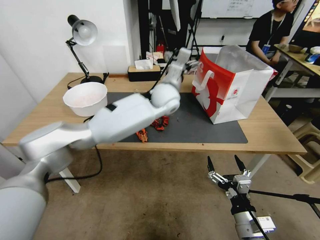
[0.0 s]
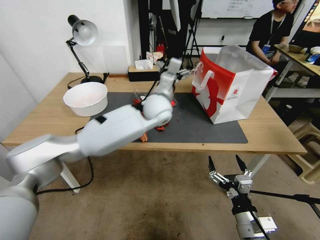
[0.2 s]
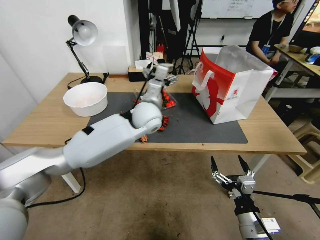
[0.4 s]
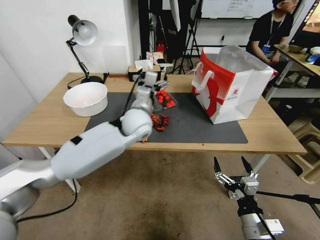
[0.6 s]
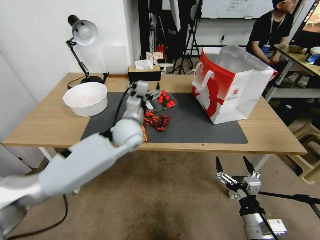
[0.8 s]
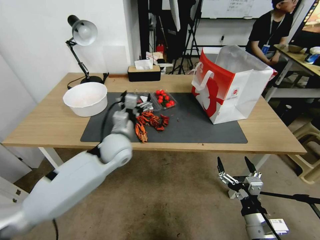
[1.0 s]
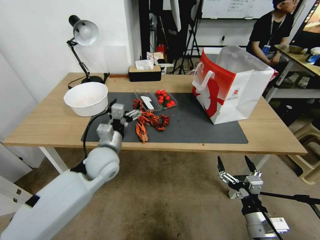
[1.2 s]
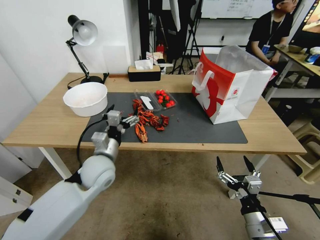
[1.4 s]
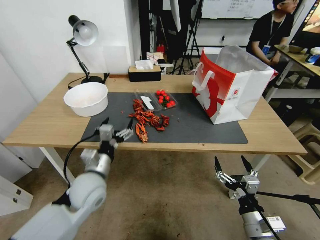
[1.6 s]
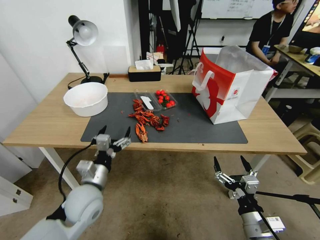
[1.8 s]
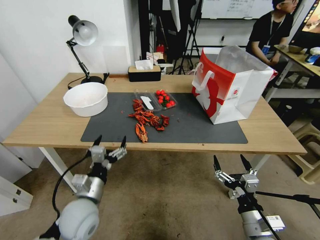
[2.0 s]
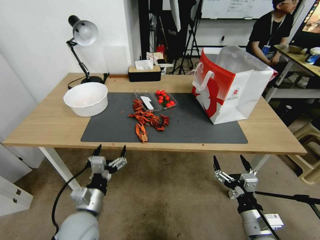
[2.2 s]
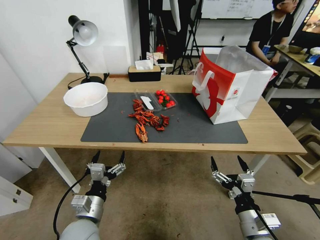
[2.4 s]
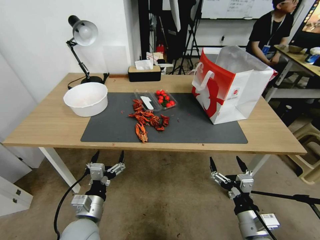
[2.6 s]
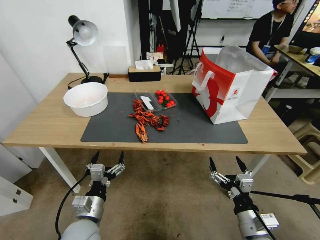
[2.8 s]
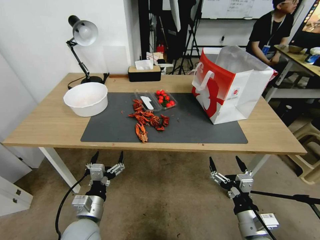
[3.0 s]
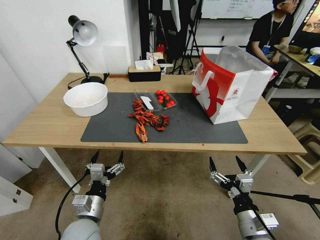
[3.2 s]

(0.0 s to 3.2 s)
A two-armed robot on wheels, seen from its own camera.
0.0 s - 1.6 s: The left gripper travels backward, to the left and downward by about 35 cm.
1.6 s - 3.2 s: The left gripper heads backward and downward, covering approximately 15 cm.

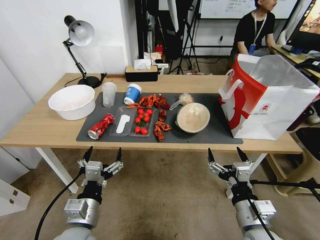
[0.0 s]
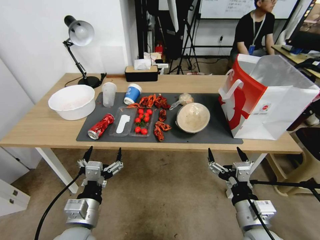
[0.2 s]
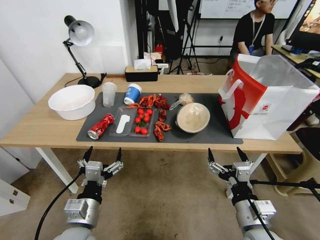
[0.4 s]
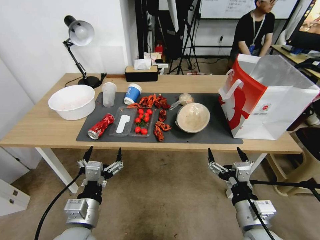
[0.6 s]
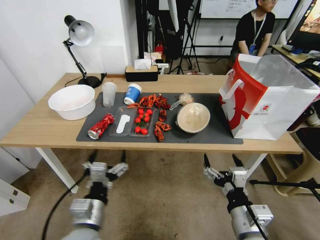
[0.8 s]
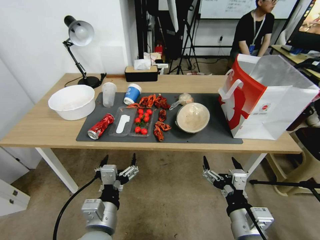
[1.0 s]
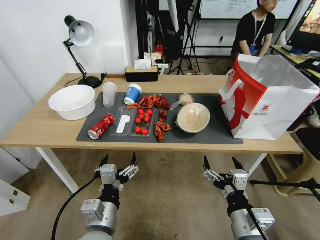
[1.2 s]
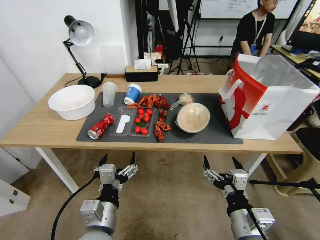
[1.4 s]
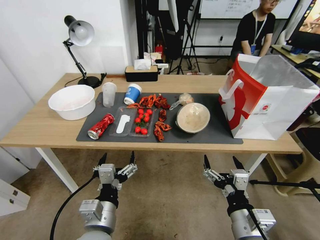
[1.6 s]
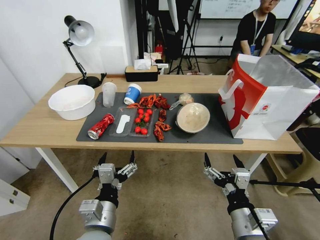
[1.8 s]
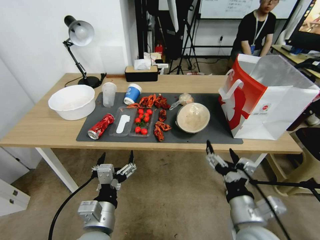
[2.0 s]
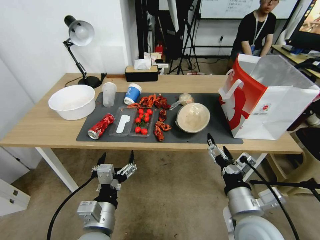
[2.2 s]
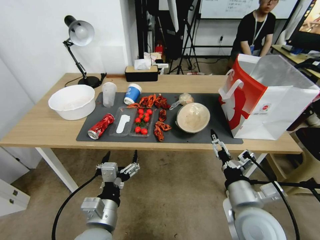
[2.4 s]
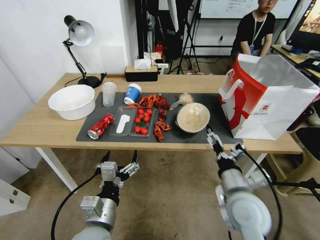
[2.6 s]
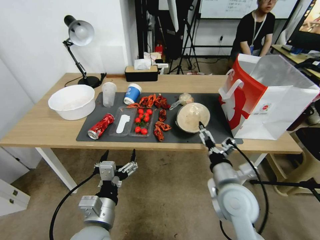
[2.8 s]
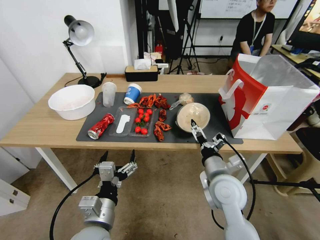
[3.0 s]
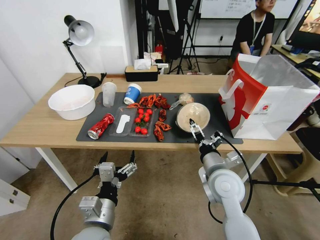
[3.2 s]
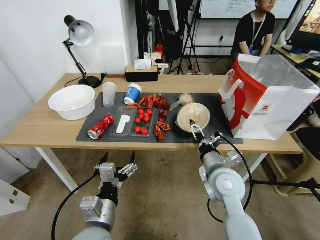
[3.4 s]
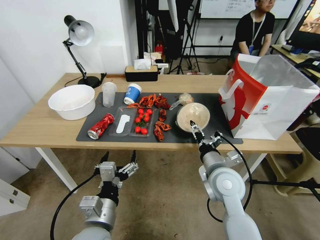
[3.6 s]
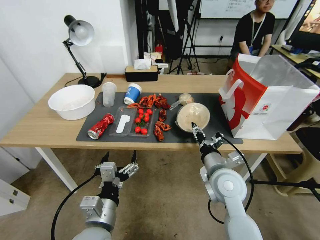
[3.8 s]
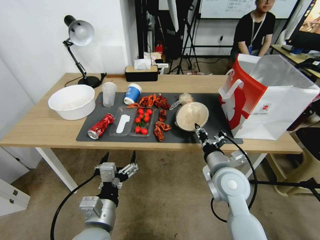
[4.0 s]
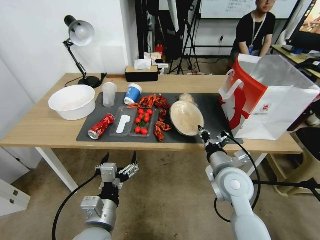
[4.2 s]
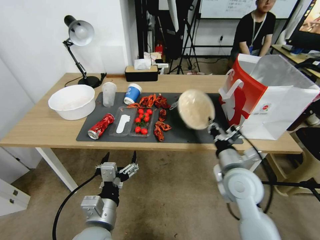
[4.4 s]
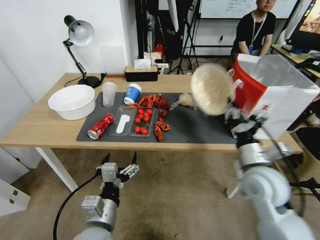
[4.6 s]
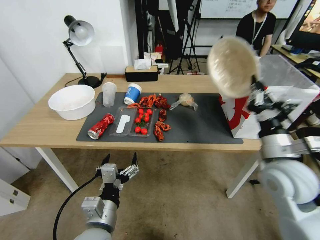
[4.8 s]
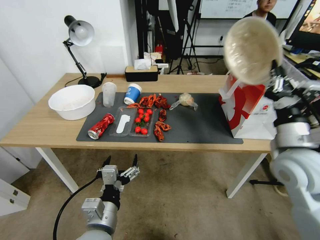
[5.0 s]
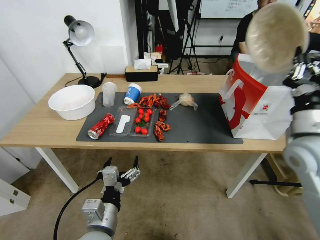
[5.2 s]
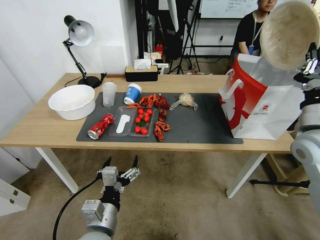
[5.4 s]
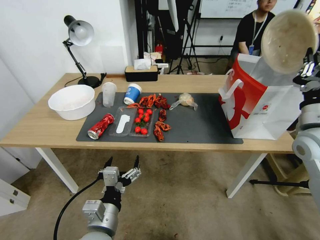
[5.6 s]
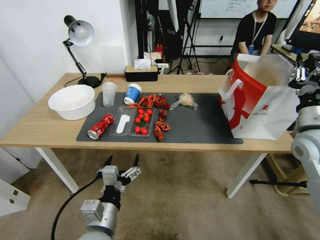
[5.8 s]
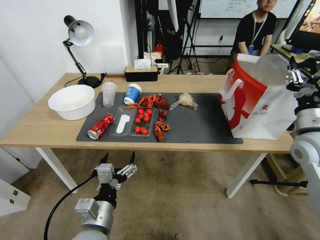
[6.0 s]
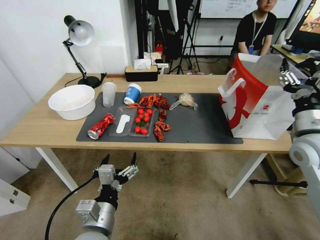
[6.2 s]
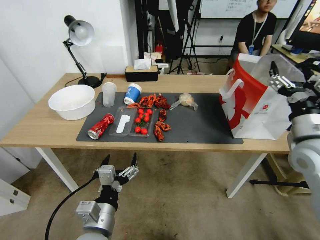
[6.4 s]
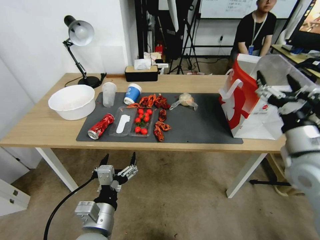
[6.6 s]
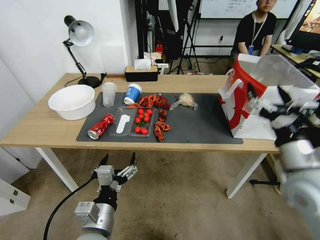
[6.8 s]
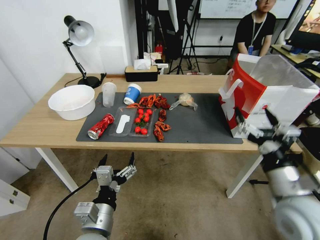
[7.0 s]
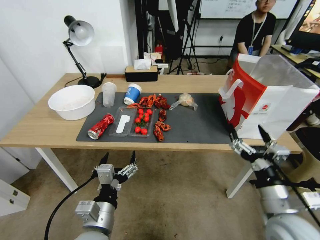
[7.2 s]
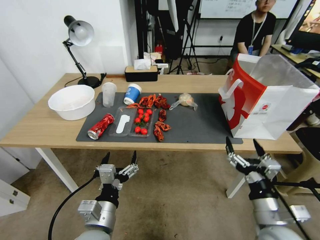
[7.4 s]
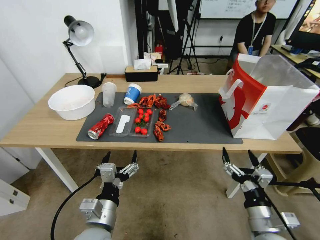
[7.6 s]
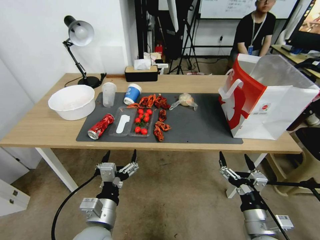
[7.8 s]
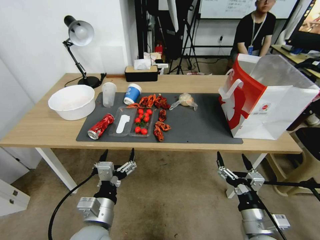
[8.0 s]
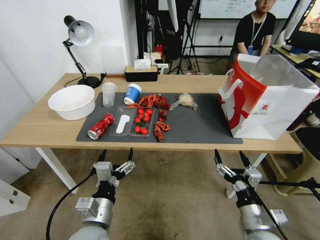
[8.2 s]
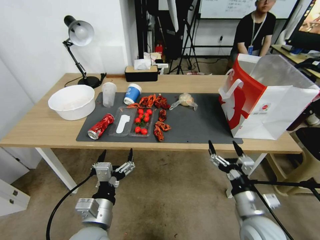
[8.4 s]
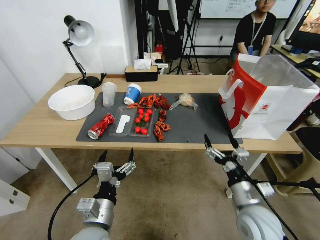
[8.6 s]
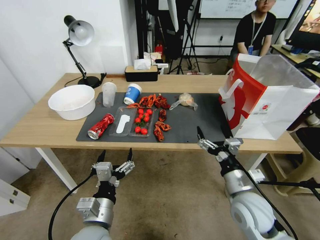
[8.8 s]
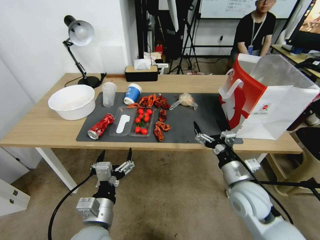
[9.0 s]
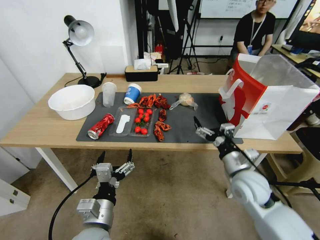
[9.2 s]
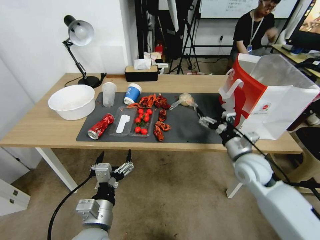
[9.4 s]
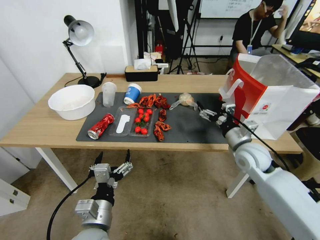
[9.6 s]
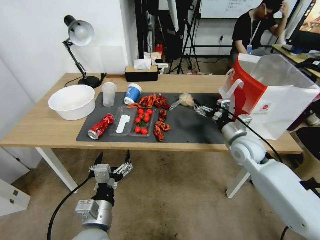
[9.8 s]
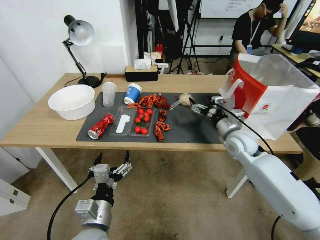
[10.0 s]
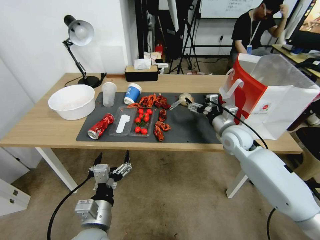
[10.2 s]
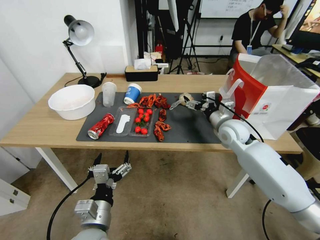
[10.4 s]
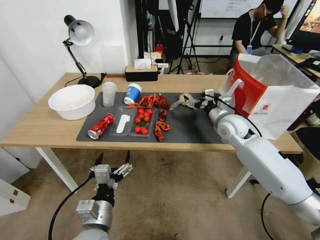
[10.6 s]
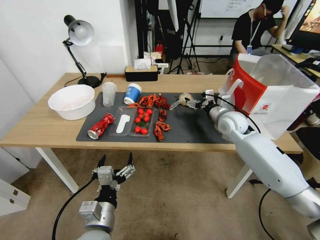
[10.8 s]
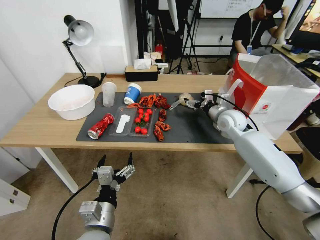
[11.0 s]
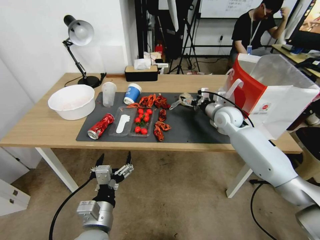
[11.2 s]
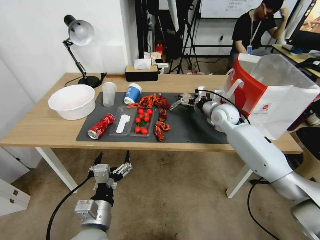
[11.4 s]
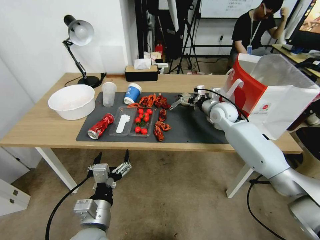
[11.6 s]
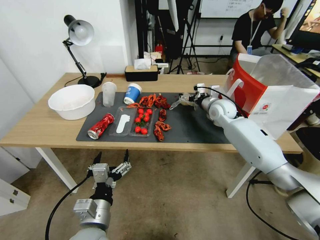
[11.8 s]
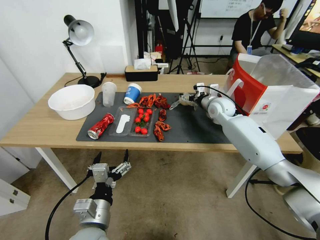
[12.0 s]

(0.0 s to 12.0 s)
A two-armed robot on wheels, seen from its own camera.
1.6 s - 3.0 s: The right gripper moves forward, approximately 15 cm.
3.0 s - 4.4 s: The right gripper closes.
4.4 s - 6.0 s: The right gripper heads to the right and upward, covering about 20 cm, and opens.
6.0 s - 7.6 s: The right gripper moves backward, downward and to the left, about 25 cm, and opens up.
7.6 s - 9.0 s: The right gripper heads forward, covering roughly 5 cm.
9.0 s - 10.4 s: The right gripper travels forward by some 25 cm.
10.4 s - 12.0 s: The right gripper goes about 10 cm forward.

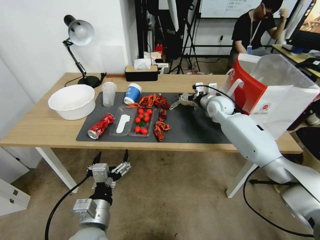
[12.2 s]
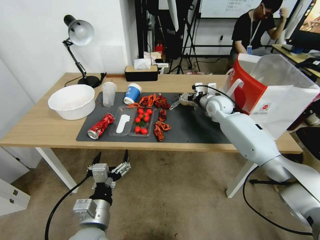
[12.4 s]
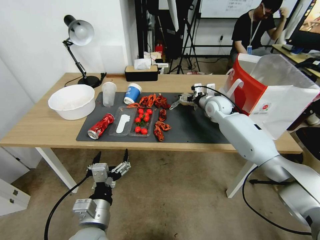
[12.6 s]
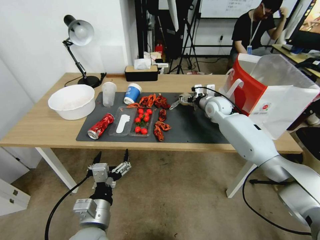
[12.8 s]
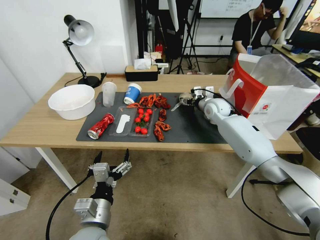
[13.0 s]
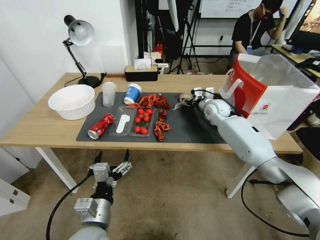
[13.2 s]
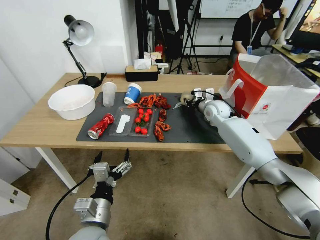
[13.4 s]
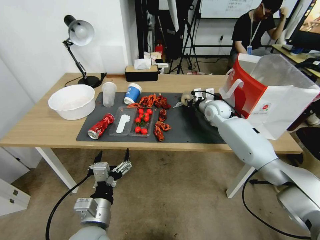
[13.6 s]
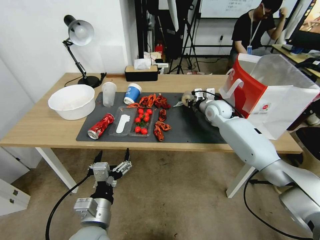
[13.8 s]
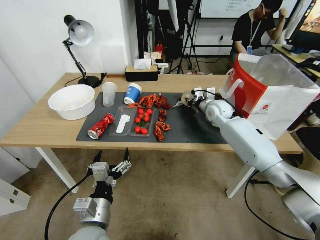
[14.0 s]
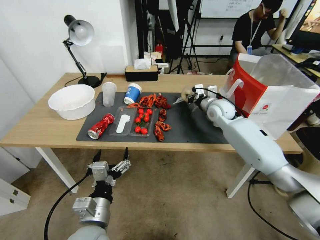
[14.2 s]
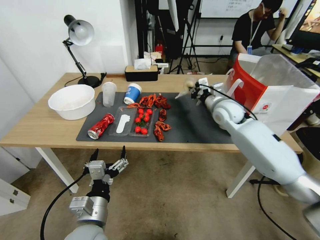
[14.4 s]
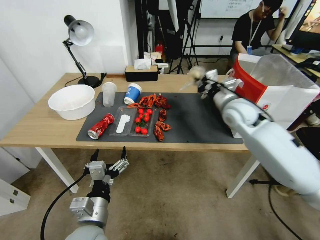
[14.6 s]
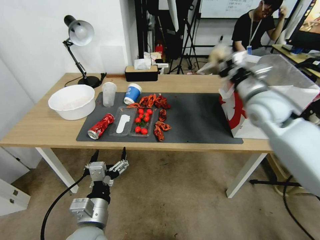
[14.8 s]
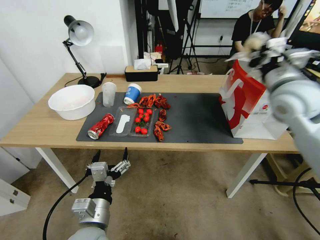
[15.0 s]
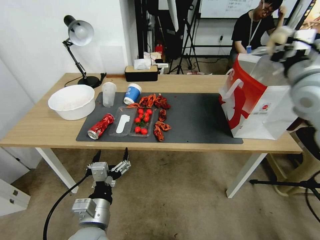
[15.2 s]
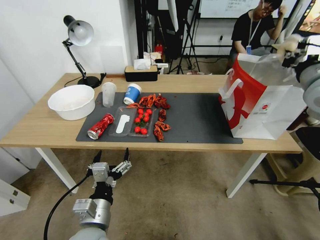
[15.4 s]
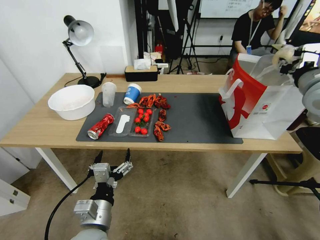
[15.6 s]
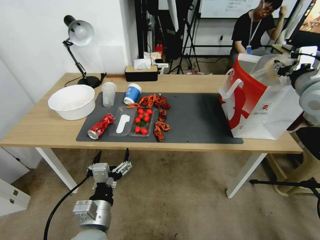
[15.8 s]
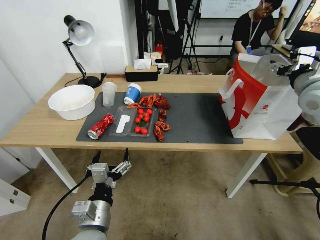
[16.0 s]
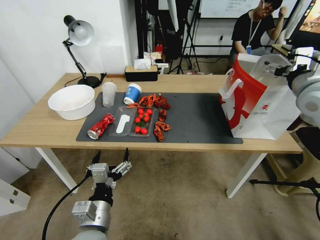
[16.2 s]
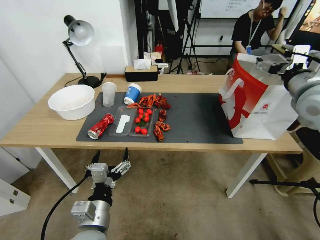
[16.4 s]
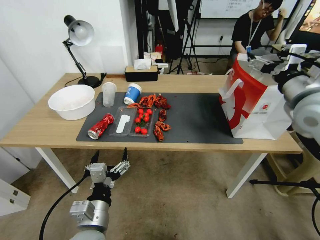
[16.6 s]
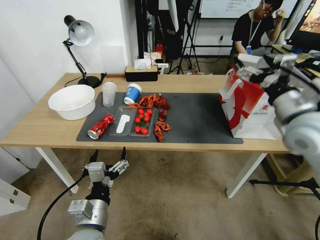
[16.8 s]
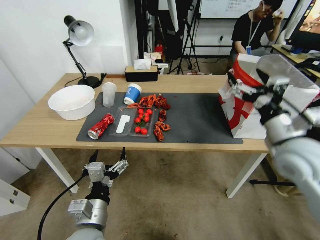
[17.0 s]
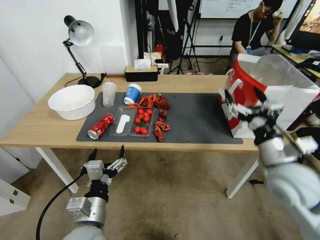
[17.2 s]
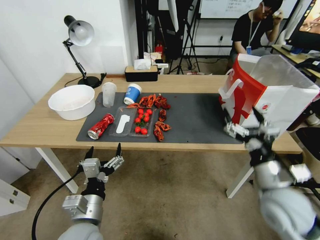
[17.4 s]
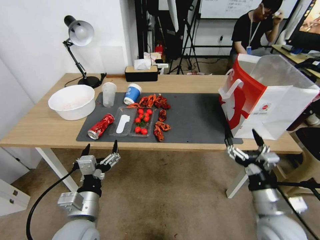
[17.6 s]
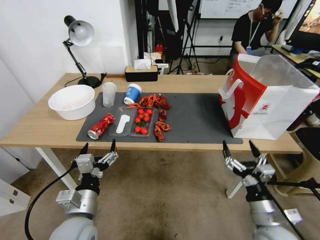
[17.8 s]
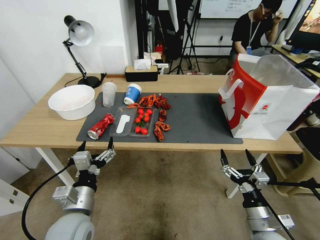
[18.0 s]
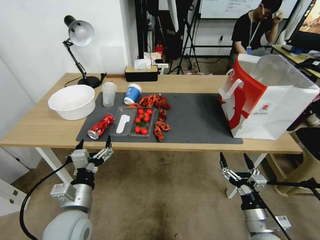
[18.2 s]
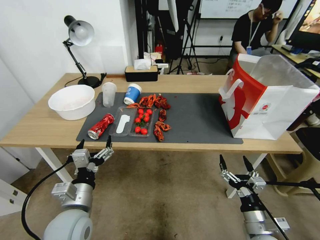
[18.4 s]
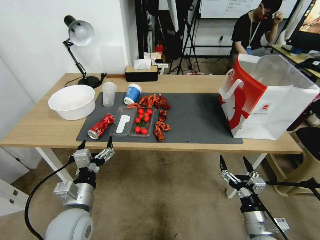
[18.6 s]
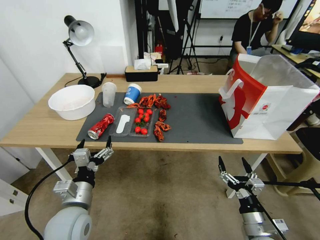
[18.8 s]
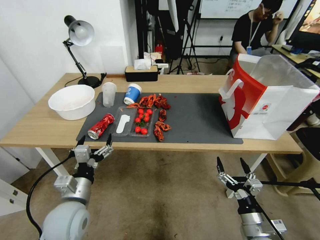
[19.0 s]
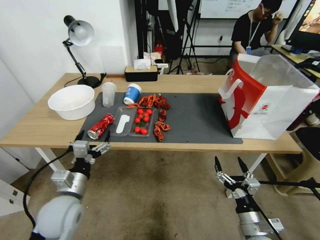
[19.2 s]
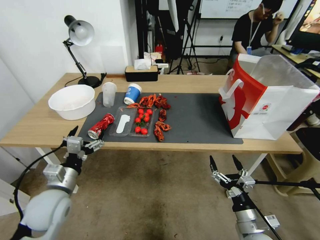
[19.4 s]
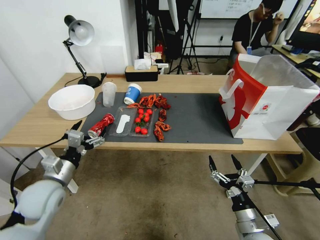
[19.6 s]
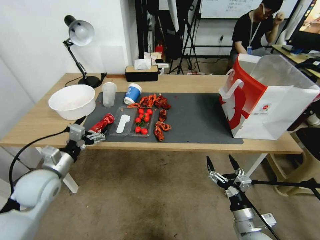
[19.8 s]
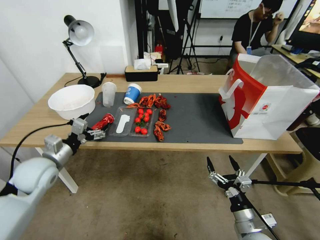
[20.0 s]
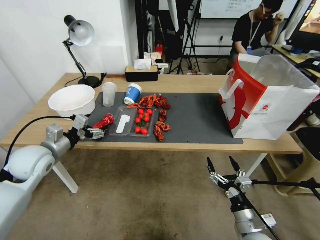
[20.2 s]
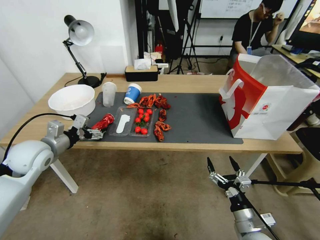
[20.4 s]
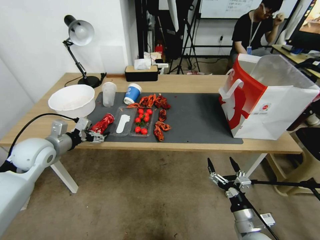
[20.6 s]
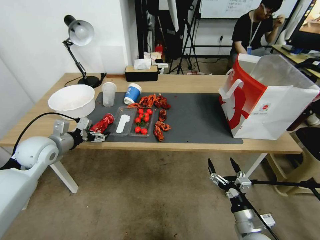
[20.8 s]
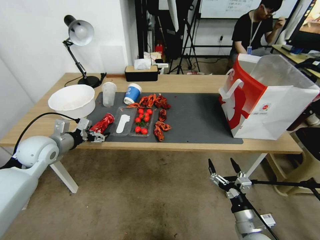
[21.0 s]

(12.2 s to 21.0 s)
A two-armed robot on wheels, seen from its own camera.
12.2 s - 13.6 s: The right gripper closes up.
13.6 s - 15.2 s: The right gripper heads upward, backward and to the right, covering roughly 30 cm.
15.2 s - 16.6 s: The right gripper opens its fingers.
16.6 s - 18.0 s: The left gripper changes place by about 5 cm; the right gripper moves downward and backward, some 40 cm.
18.0 s - 19.6 s: The left gripper moves to the left and forward, some 15 cm.
19.6 s - 21.0 s: The left gripper moves forward and upward, roughly 10 cm.
